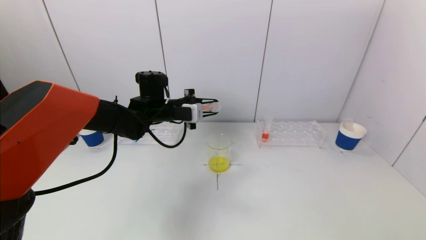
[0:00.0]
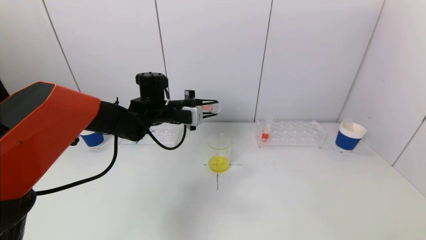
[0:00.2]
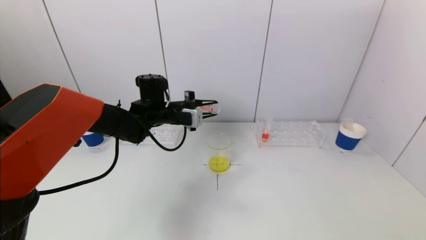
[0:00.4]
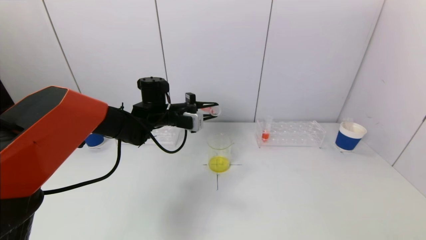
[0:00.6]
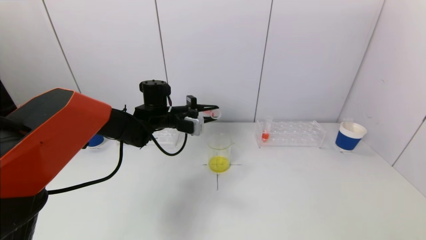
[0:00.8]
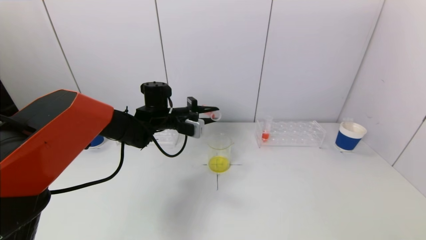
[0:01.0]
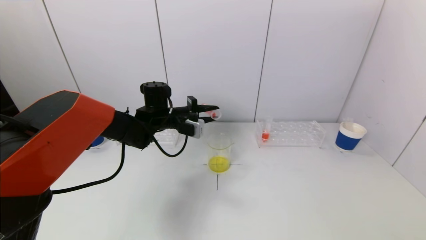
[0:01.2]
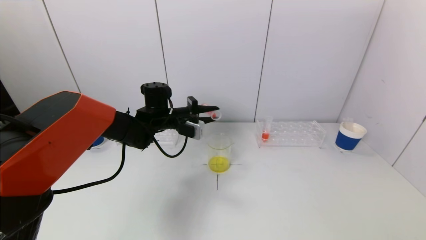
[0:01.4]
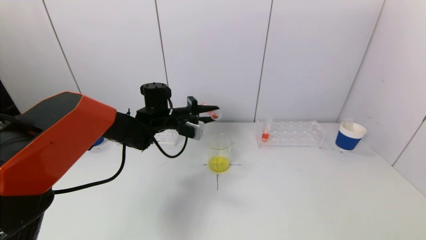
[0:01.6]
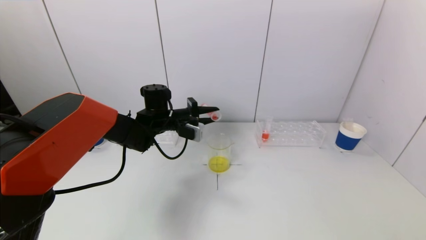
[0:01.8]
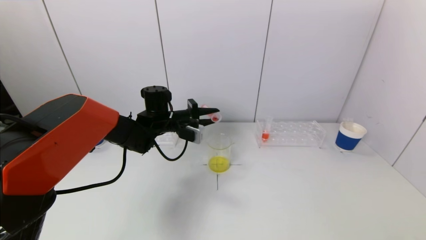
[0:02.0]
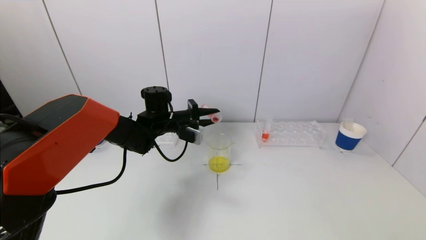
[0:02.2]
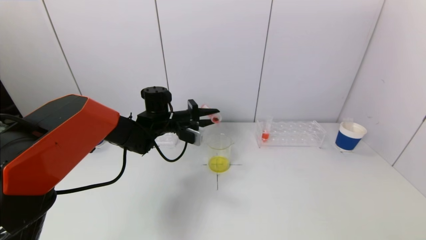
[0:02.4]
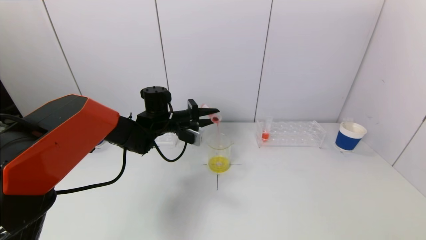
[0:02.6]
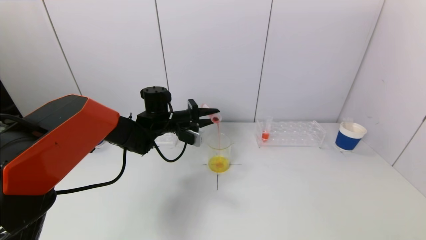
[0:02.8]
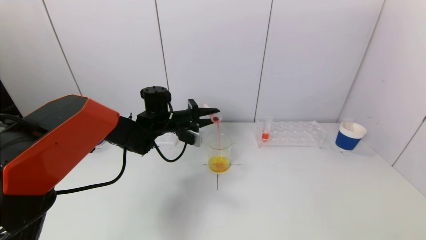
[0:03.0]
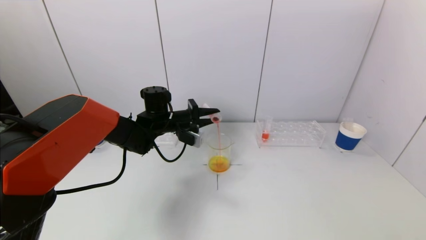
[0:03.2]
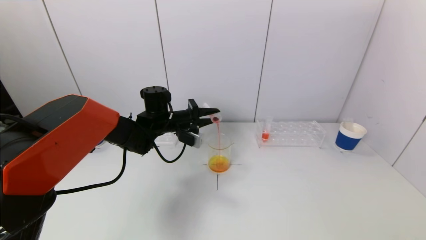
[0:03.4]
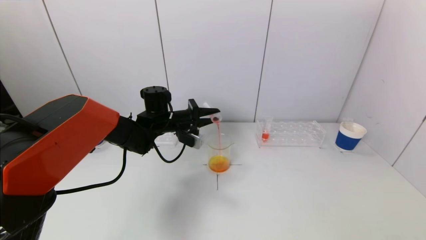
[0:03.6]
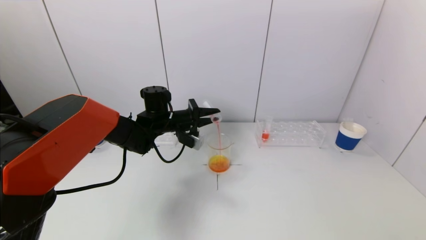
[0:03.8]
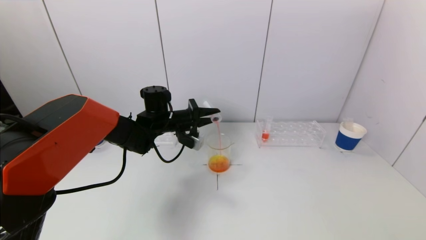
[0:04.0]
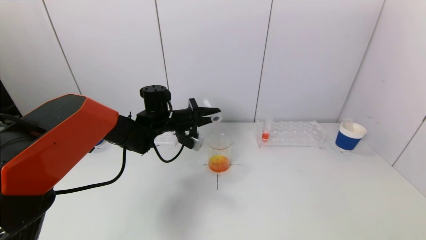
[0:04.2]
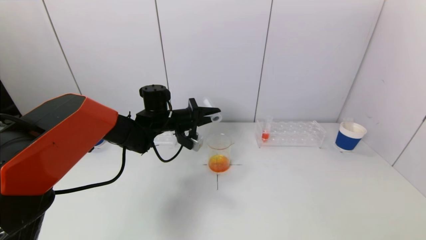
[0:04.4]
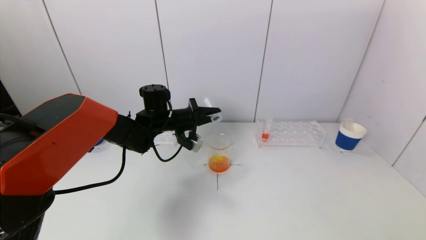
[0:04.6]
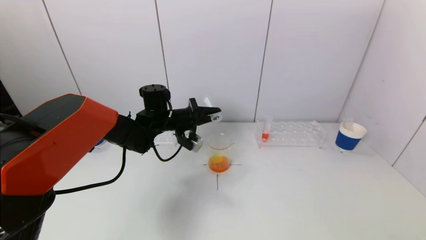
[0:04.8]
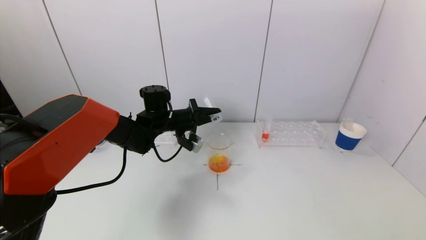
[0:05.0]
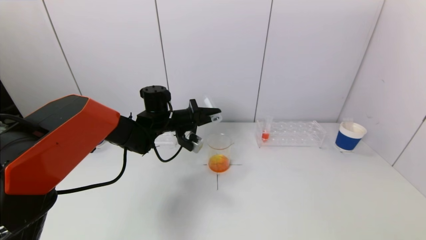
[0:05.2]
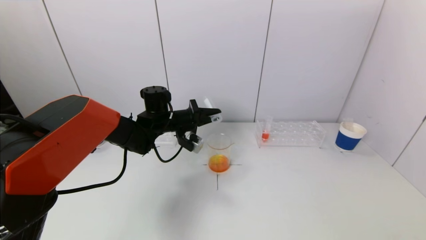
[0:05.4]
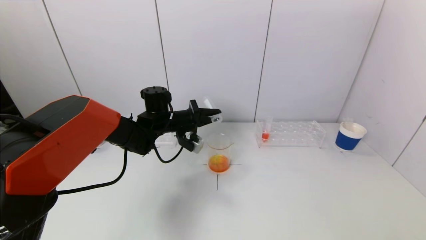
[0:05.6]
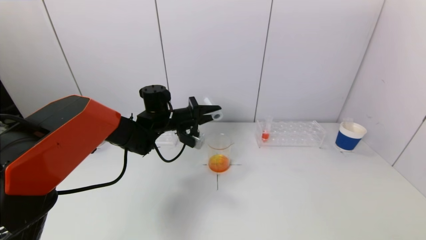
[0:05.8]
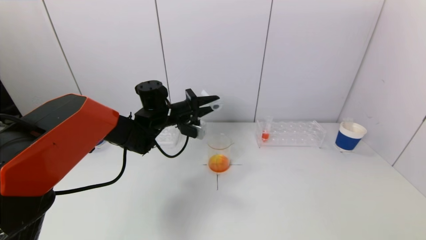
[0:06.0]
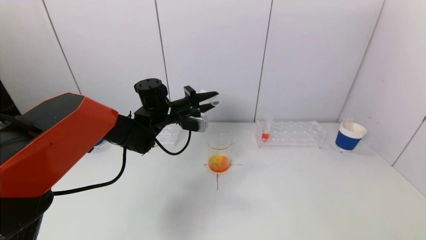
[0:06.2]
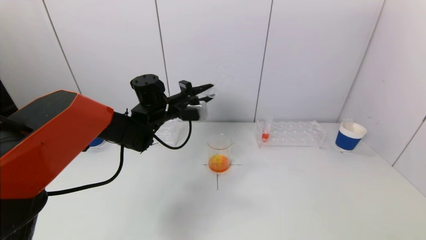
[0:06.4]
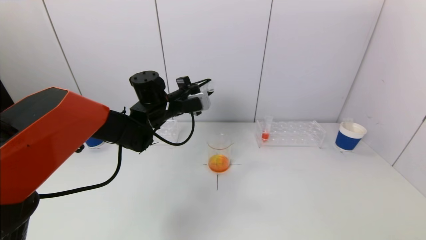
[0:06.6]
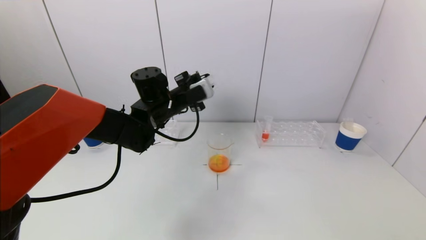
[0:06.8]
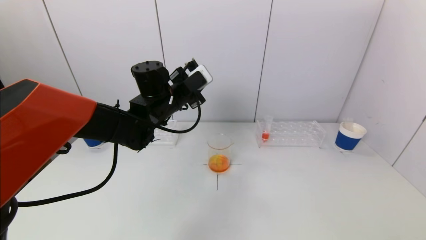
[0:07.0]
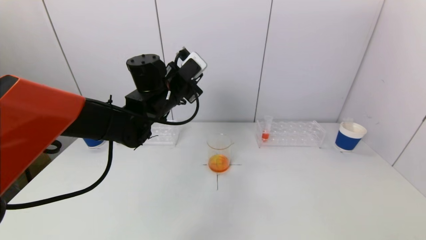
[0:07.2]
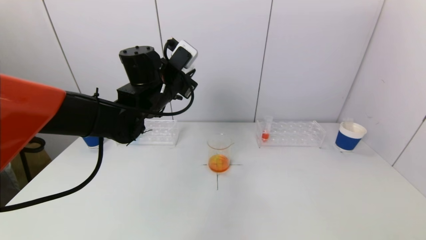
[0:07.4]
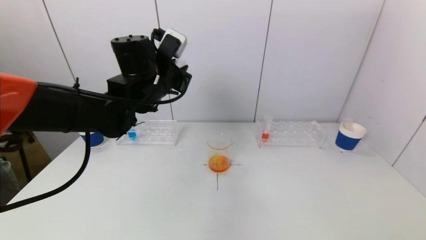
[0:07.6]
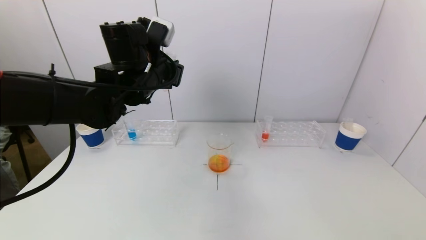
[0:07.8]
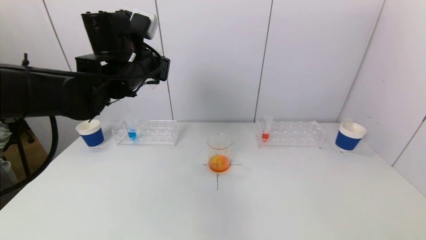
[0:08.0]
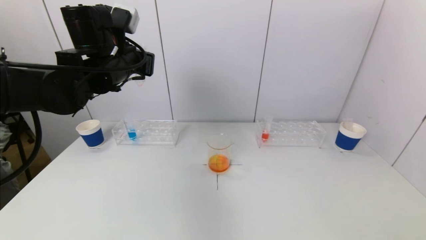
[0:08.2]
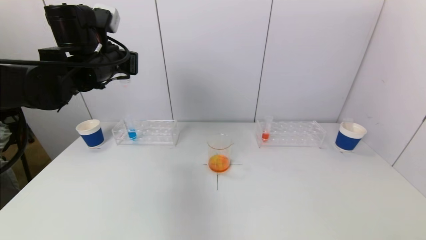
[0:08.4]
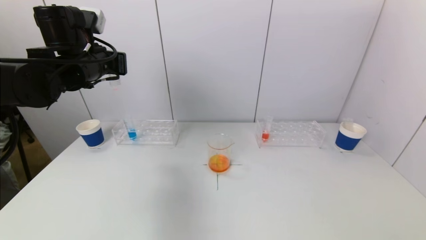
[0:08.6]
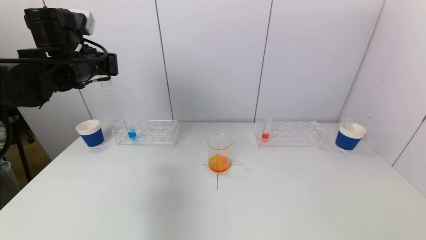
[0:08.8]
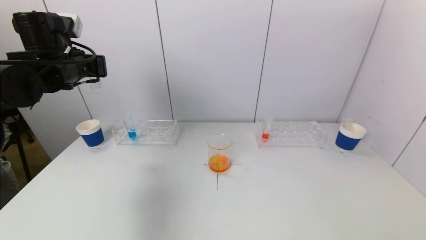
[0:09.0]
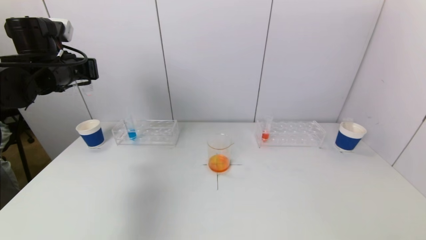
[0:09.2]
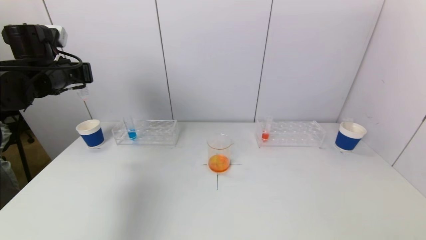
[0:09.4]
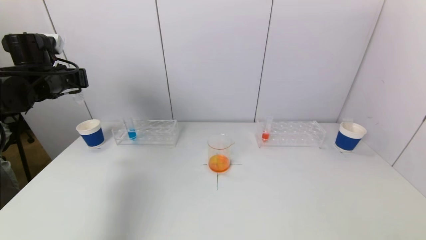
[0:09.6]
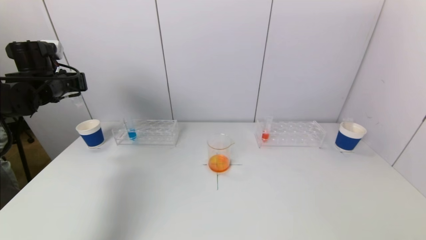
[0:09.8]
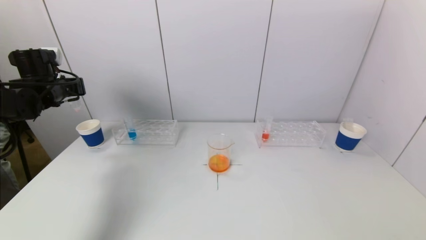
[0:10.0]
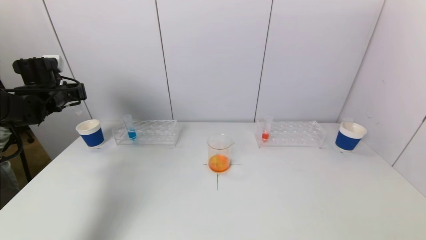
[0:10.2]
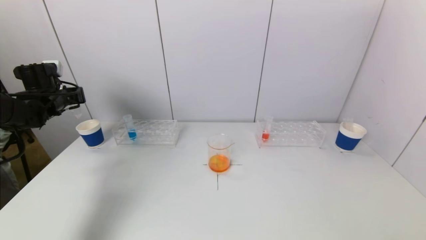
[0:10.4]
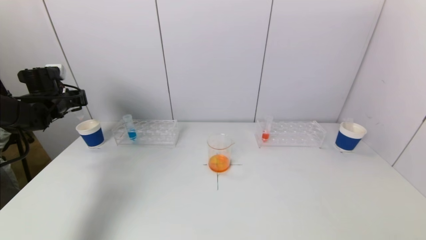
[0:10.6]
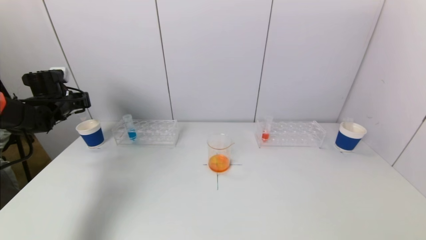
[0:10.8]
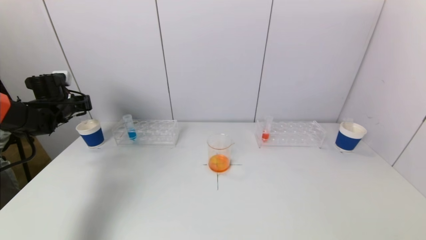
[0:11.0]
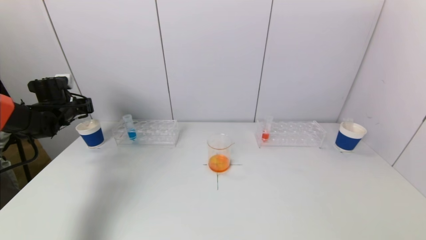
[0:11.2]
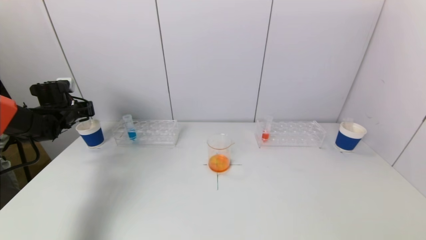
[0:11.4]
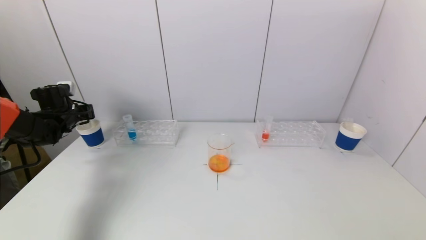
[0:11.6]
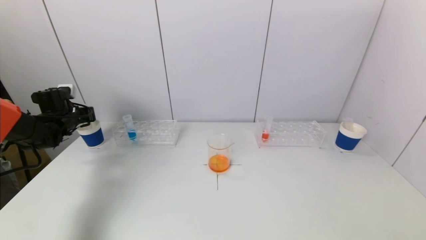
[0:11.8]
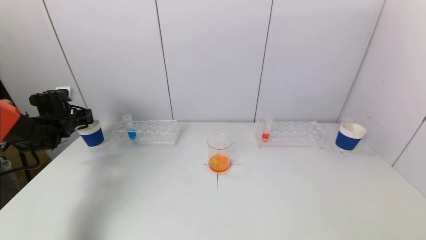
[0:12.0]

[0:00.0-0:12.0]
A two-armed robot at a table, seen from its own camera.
Task of the whole recording: pick up a test tube with pigment on left test tube rack and a test tube with pigment on right test tube rack by grippers and pour them into the beaker.
Step, 0:00.0 to 0:04.6: Pour the red reagent into the graduated cylinder with the left gripper.
0:00.0 to 0:01.6: The grippers make only small movements.
0:01.6 to 0:03.0: The grippers move only a little.
0:03.0 to 0:06.0: The grippers stay close to where they were, moving slightly.
0:06.0 to 0:07.6: The left gripper moves upward and backward, approximately 10 cm.
0:07.6 to 0:09.0: The left gripper moves to the left, about 15 cm.
0:09.0 to 0:10.4: The left gripper moves to the left, downward and forward, some 15 cm.
0:10.4 to 0:12.0: The left gripper heads downward, covering some 10 cm.

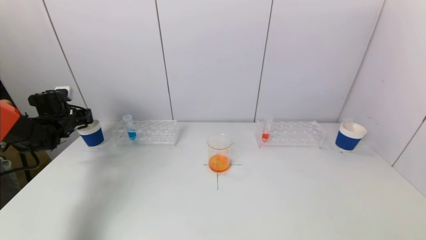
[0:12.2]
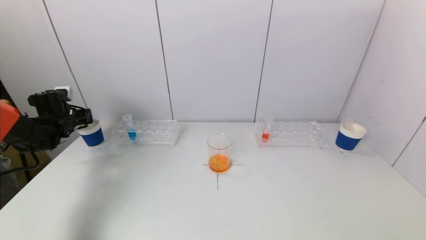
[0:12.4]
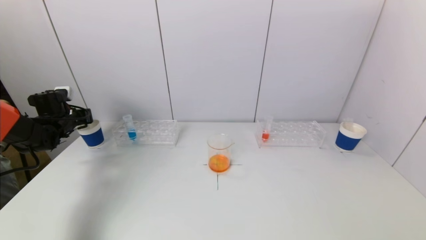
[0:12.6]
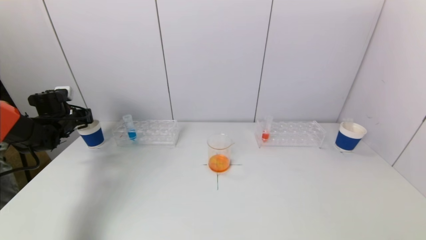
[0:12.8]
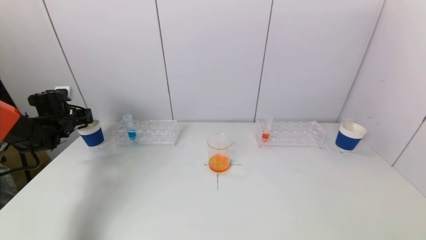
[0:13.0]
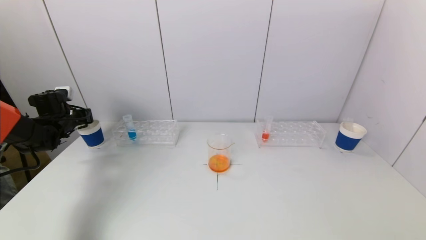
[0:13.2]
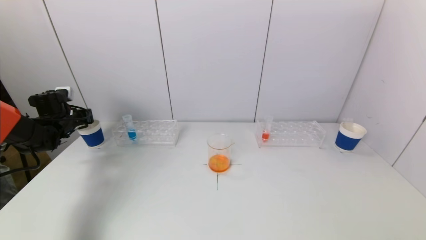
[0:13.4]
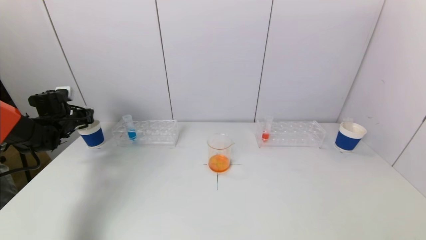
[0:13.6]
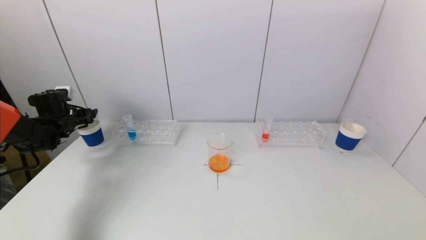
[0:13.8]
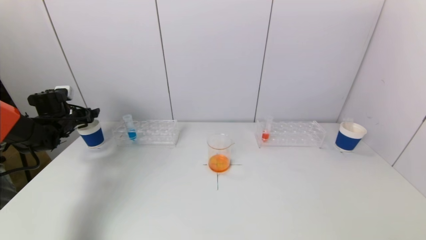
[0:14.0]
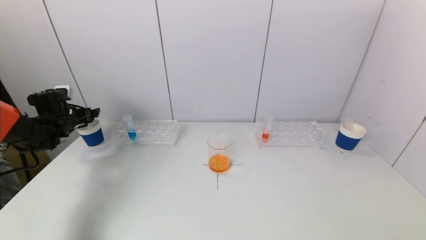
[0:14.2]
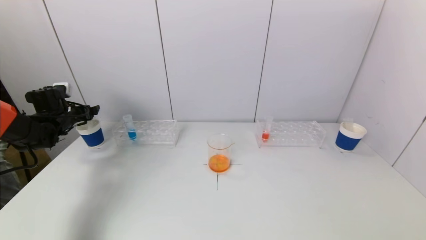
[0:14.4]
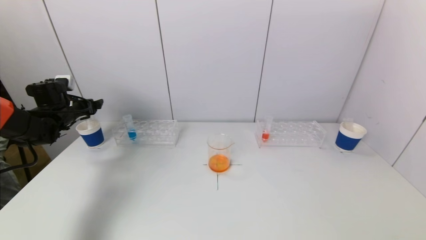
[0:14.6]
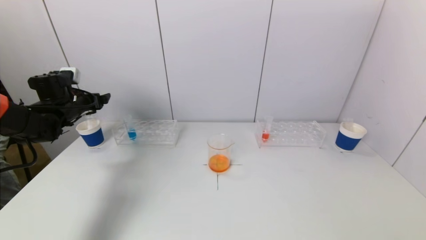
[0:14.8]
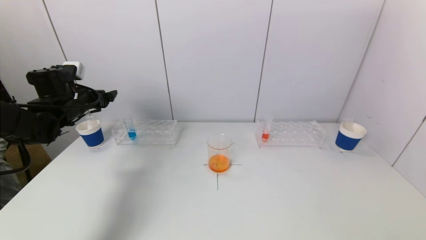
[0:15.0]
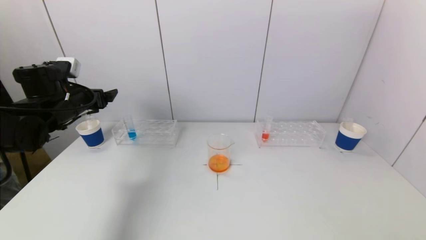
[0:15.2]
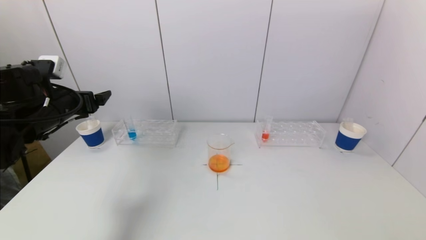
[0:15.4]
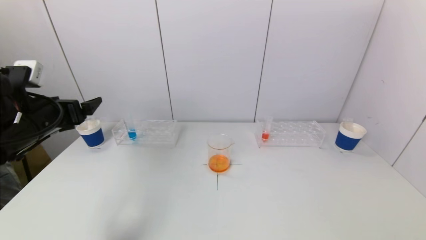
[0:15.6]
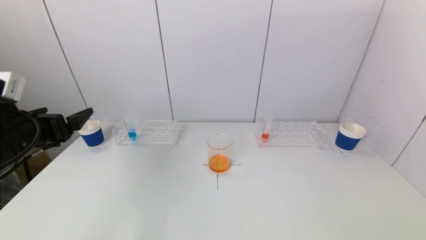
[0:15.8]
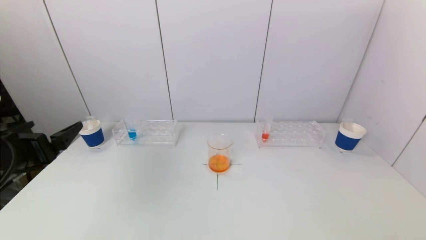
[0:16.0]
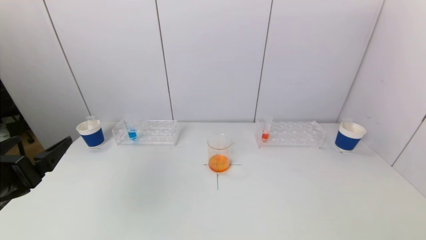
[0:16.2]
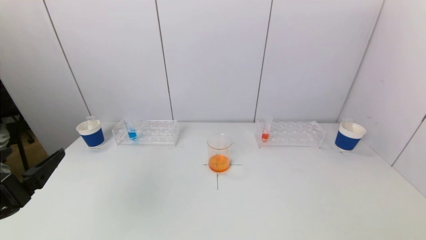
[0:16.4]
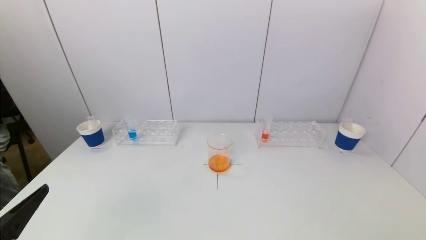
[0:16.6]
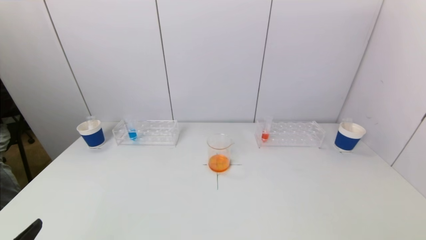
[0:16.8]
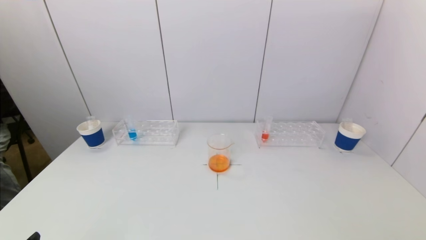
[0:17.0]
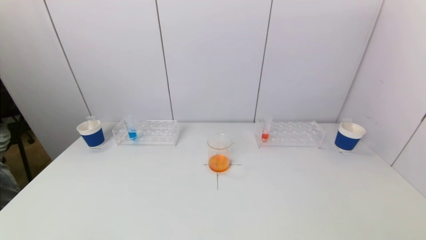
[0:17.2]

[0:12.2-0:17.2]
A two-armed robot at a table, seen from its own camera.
Task of the whole recording: pick up a test tube with pigment on left test tube rack and a test tube with pigment on right test tube rack by grippers and pour them into the beaker.
0:13.8 to 0:15.6: The left gripper heads backward, to the right and upward, covering some 25 cm.
0:15.6 to 0:17.2: The left gripper moves backward, approximately 30 cm.
